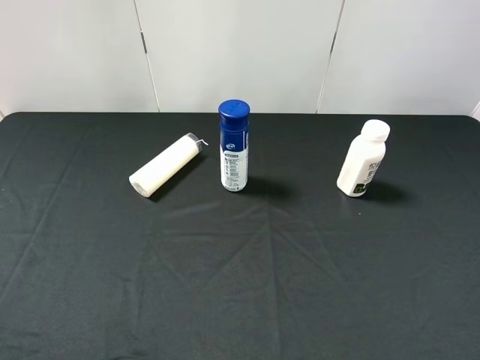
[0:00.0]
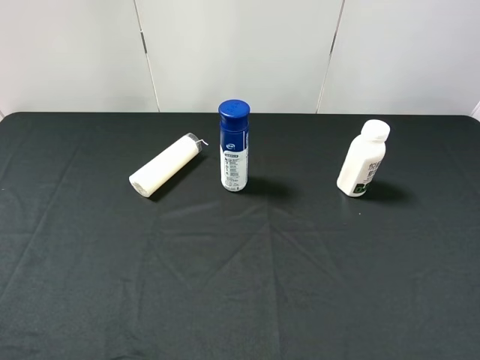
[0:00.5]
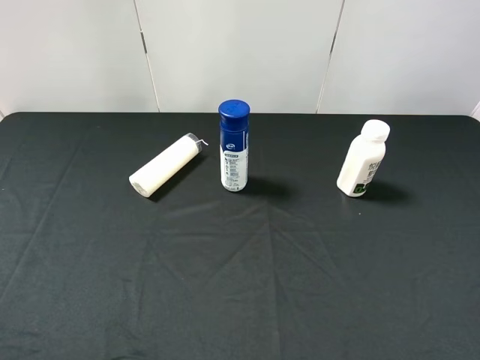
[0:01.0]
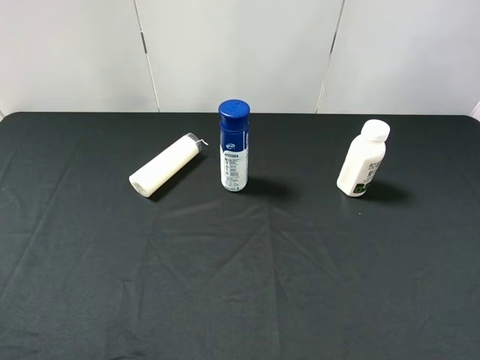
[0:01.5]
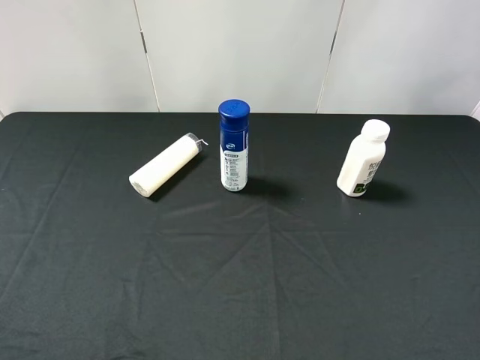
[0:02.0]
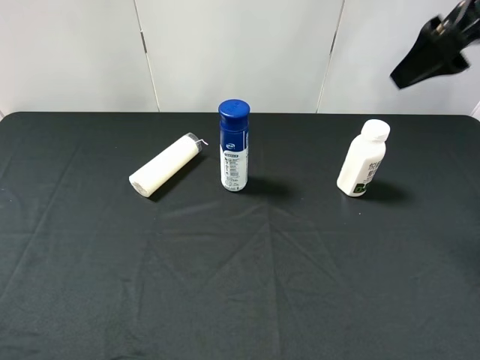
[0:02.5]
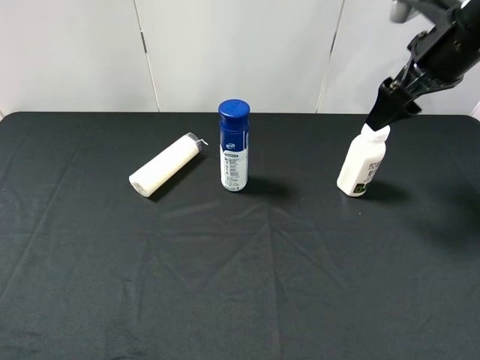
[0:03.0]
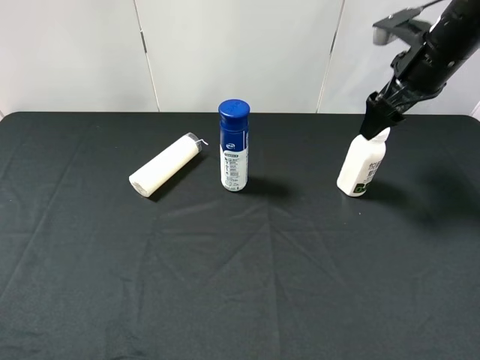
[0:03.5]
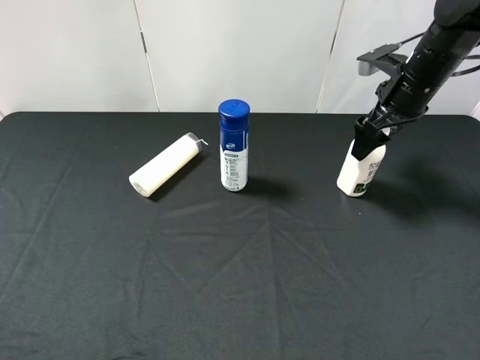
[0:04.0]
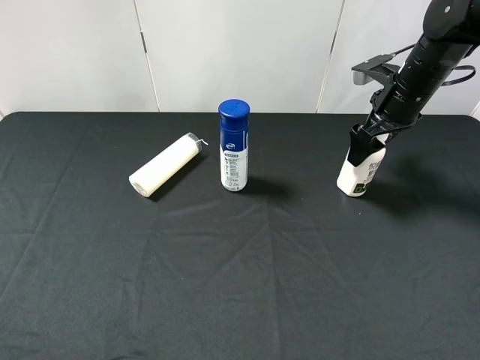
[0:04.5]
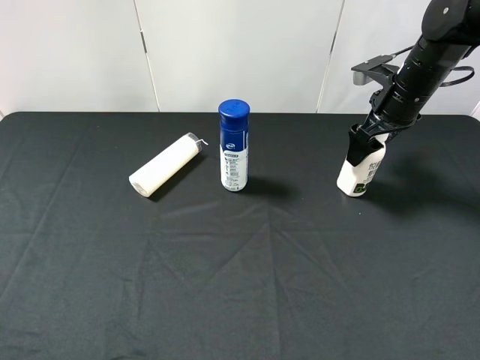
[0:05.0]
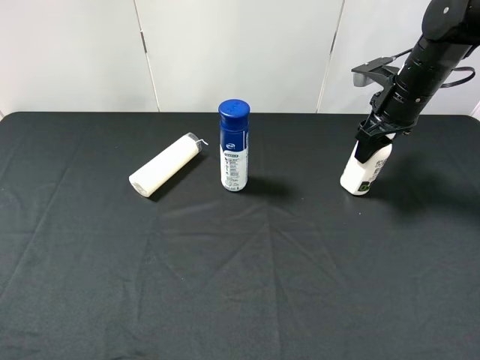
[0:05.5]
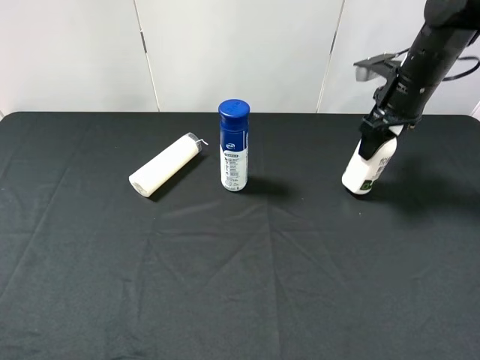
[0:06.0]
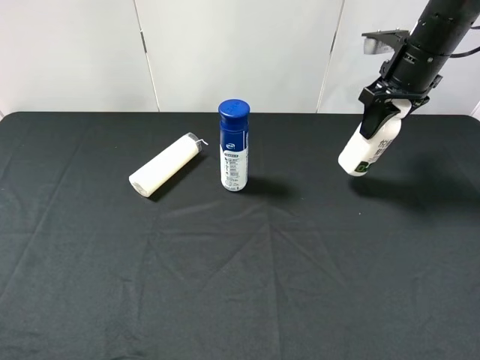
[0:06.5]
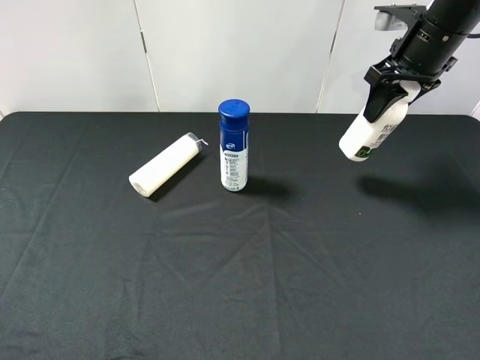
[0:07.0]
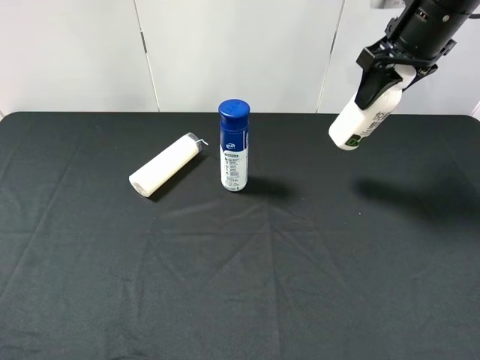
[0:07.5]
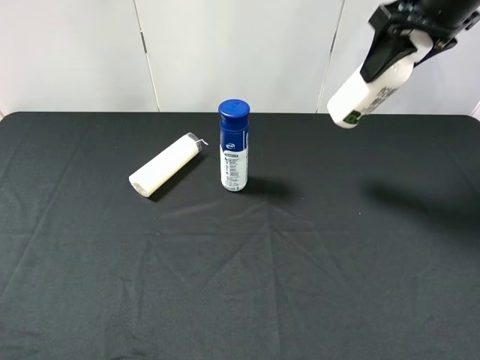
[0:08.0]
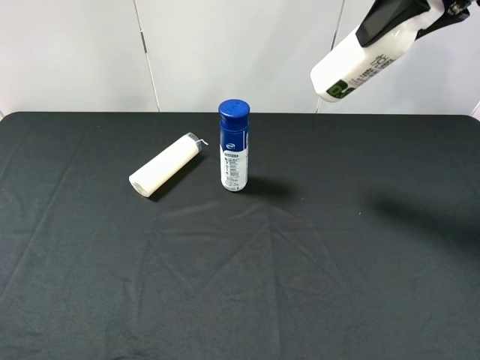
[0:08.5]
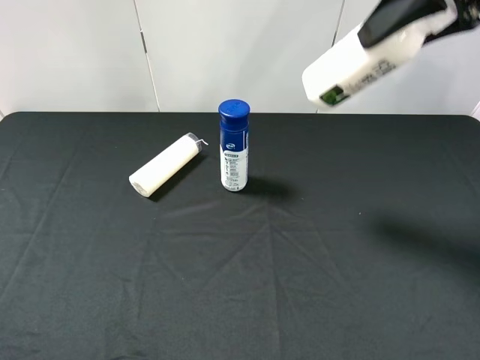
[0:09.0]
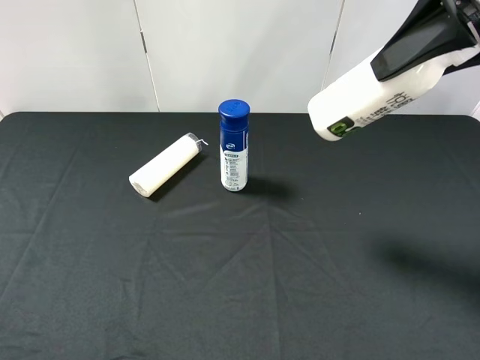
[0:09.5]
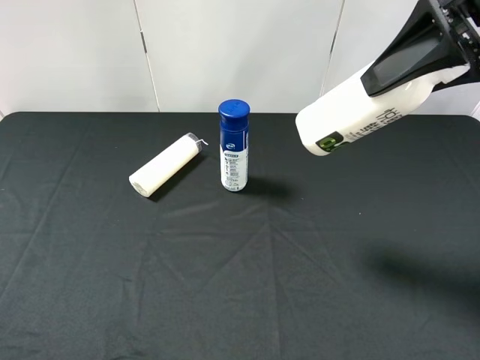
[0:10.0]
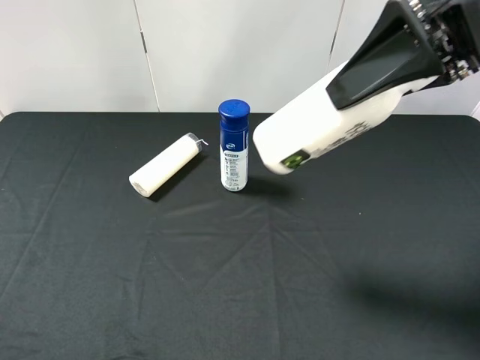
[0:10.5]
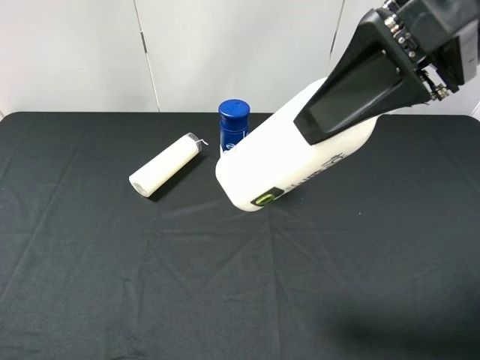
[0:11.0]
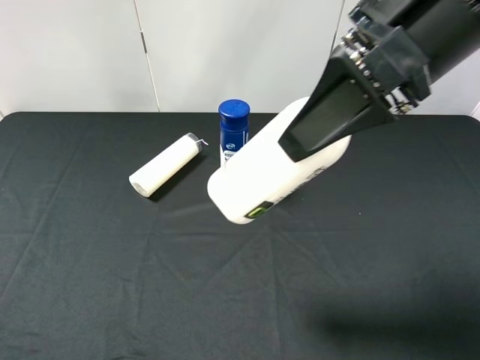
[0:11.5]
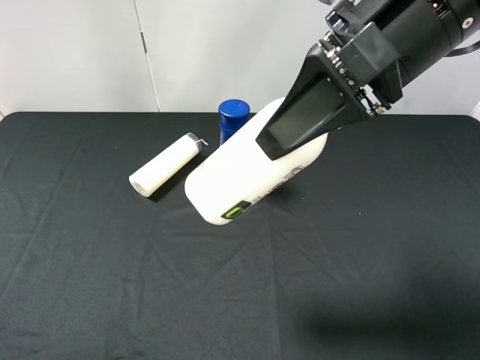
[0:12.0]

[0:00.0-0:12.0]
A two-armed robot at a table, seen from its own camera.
Task of the whole recording: use the right gripper to pick up the item and transfer it from the right gripper to the left gripper.
Step, 0:00.0 to 0:05.5: Use the right gripper to grab the milk on the right side of the table.
0:02.0 to 0:04.0: The right gripper travels downward and forward by approximately 30 cm.
0:04.0 to 0:06.0: The right gripper closes up.
0:06.0 to 0:08.0: The right gripper shifts some 15 cm upward.
0:08.0 to 0:10.0: The right gripper travels backward by about 10 cm.
0:10.0 to 0:12.0: The right gripper is displaced to the left by some 10 cm. The left gripper shifts by some 5 cm.

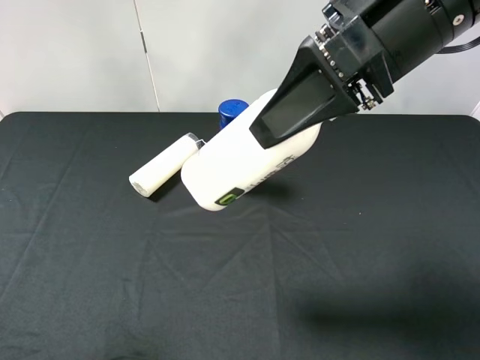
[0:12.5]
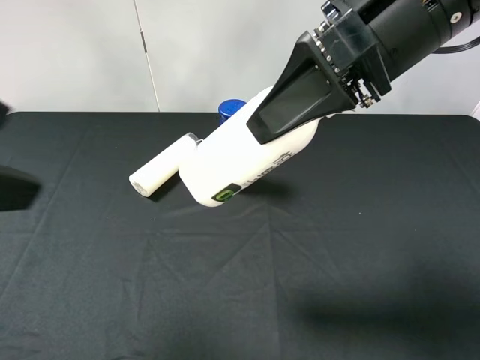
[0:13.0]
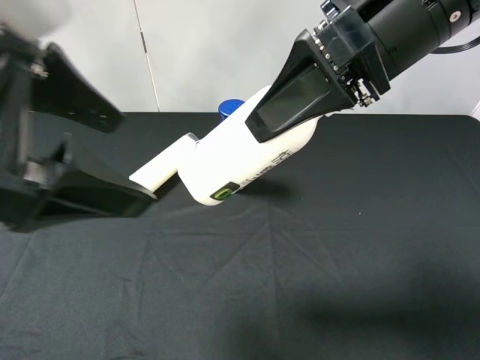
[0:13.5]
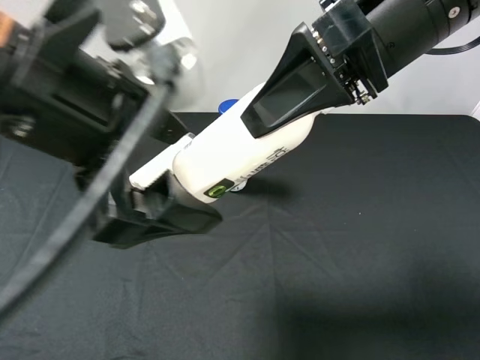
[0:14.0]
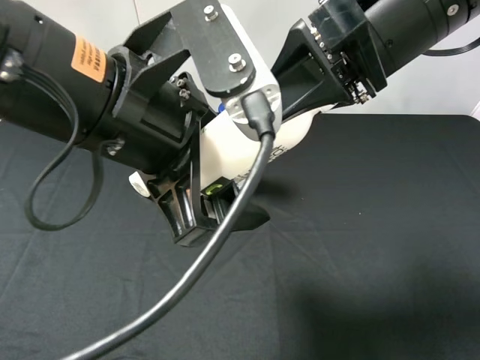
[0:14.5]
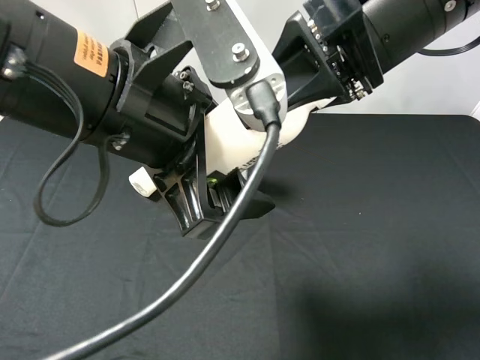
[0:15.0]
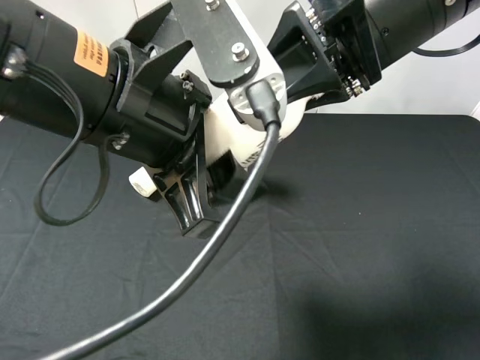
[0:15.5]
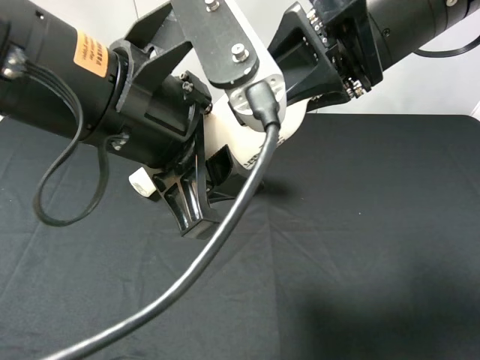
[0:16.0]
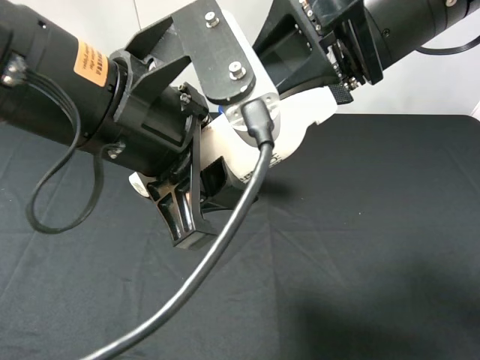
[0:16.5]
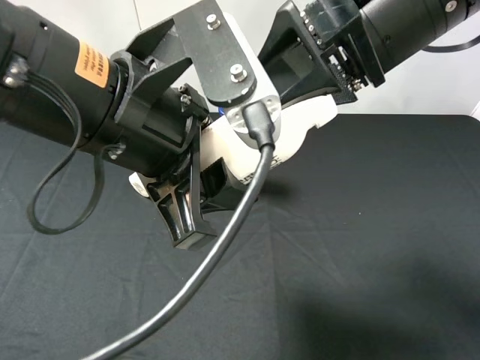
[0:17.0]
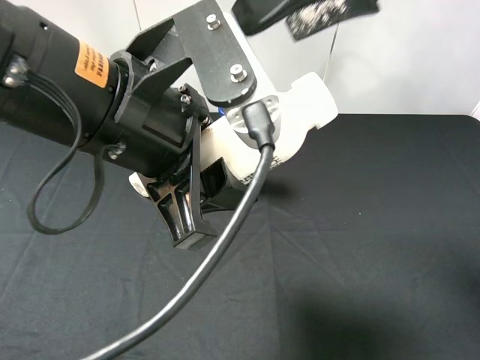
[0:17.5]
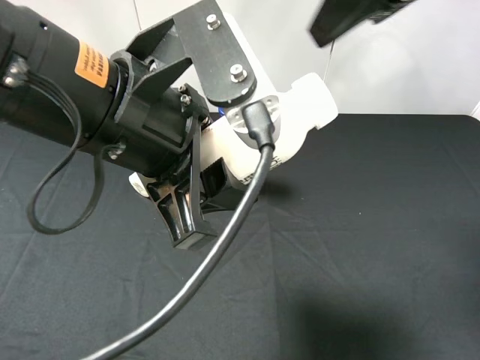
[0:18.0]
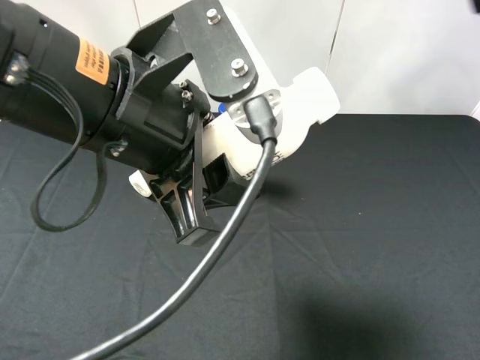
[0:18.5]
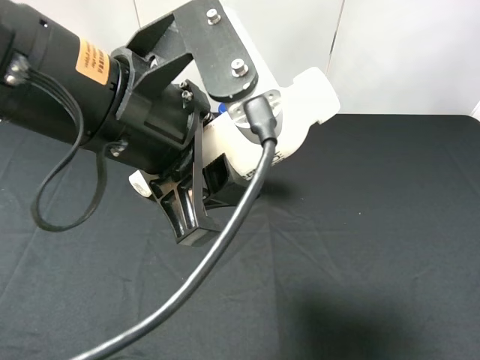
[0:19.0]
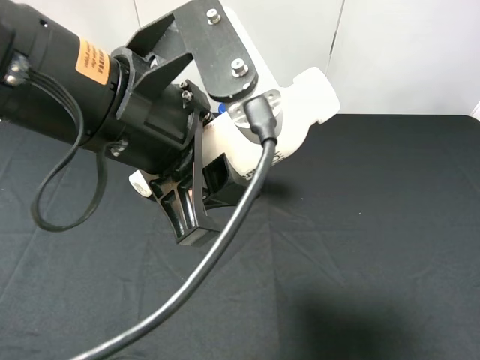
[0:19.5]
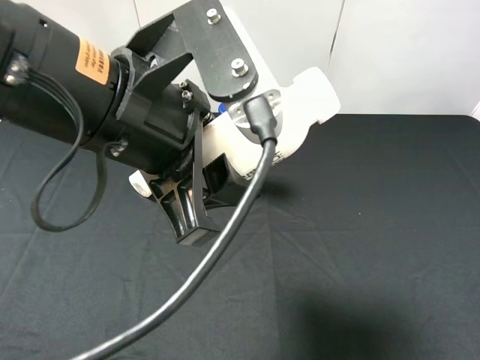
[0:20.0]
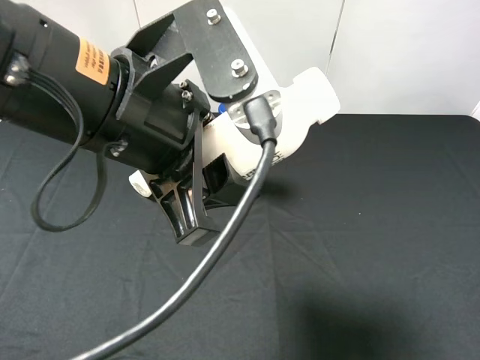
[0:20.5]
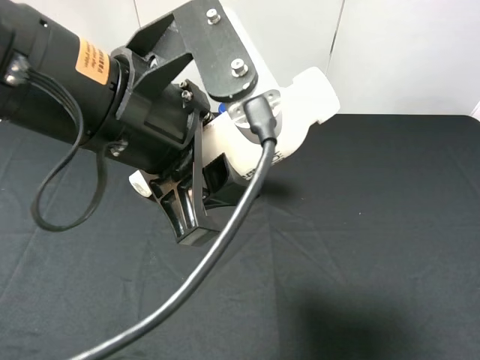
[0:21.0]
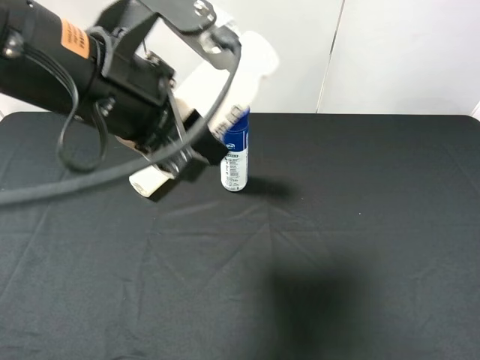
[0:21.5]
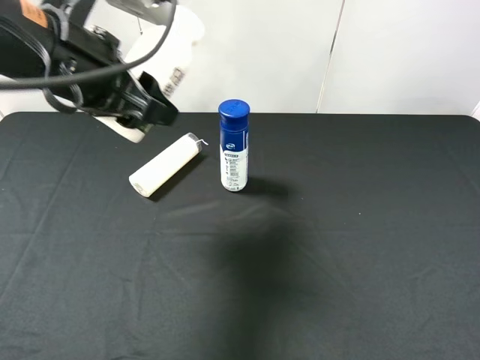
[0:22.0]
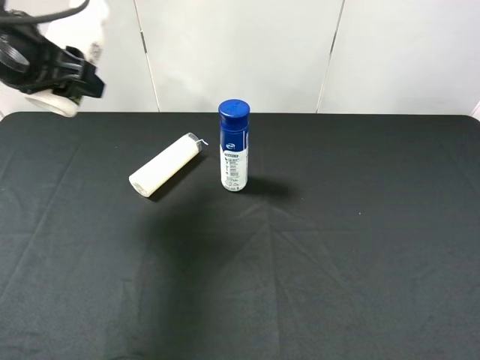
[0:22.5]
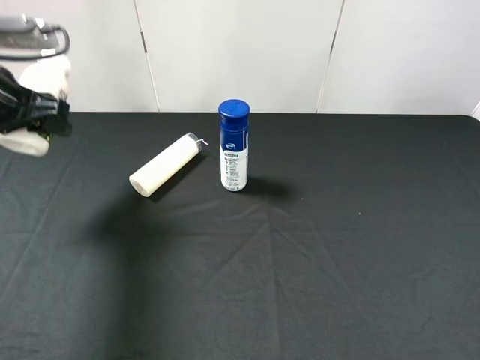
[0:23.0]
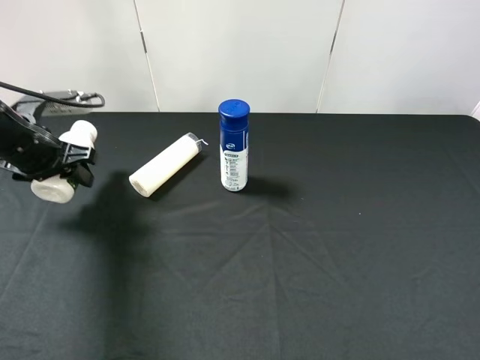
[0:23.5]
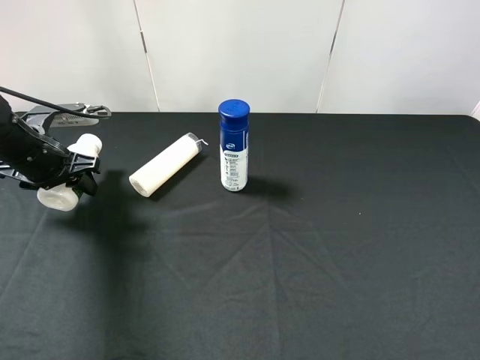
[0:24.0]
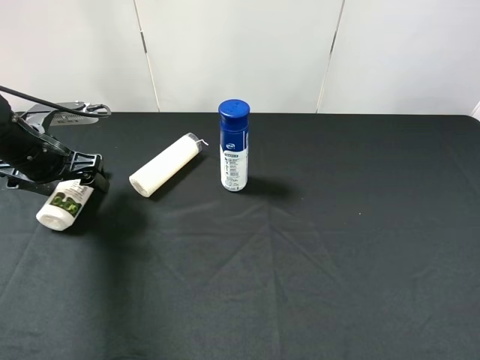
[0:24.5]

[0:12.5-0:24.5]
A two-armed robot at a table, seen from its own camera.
Task of the whole recording: use the right gripper to pick up the item and transfer it from the right gripper to the left gripper.
Step, 0:12.5 to 0:16.5: Pass the milk to the left gripper.
0:12.5 to 0:14.5: The left gripper moves to the right and forward, approximately 20 cm.
0:14.5 to 0:16.5: The left gripper closes its fingers. The right gripper opens its fingers.
0:16.5 to 0:18.5: The right gripper shifts some 15 cm to the right, upward and backward.
0:20.5 to 0:22.5: The left gripper travels to the left and forward by approximately 20 cm.
0:22.5 to 0:24.5: The left gripper goes some 15 cm downward, and opens up.

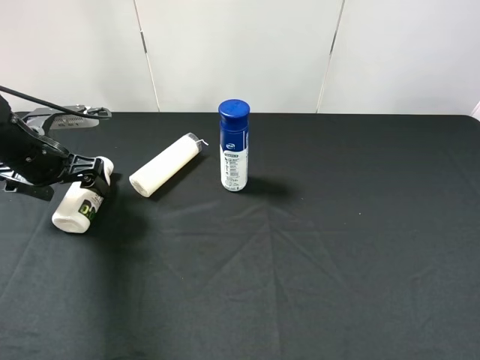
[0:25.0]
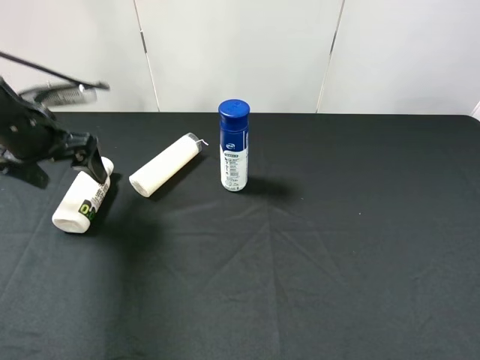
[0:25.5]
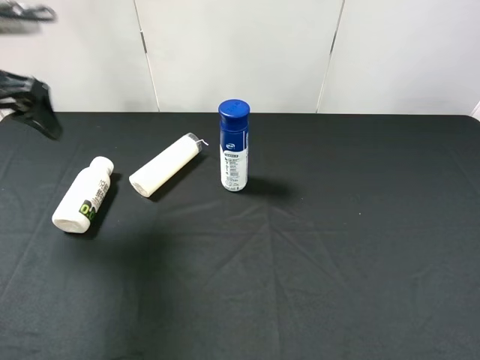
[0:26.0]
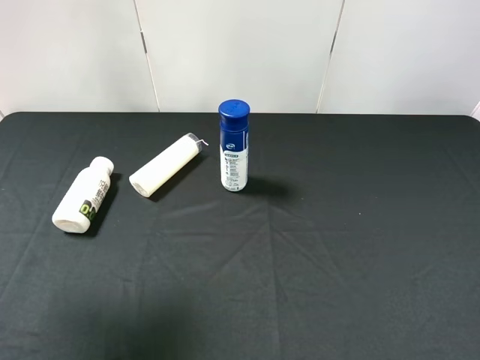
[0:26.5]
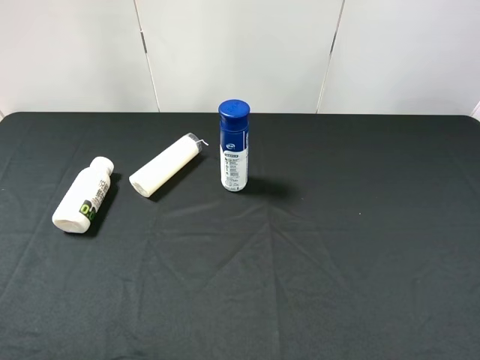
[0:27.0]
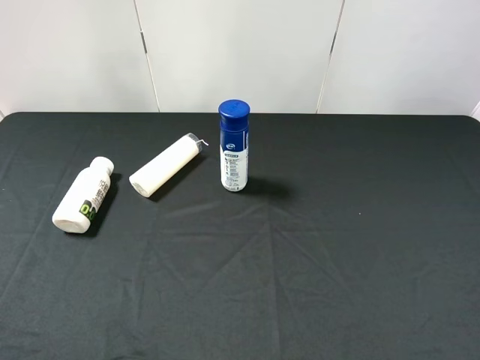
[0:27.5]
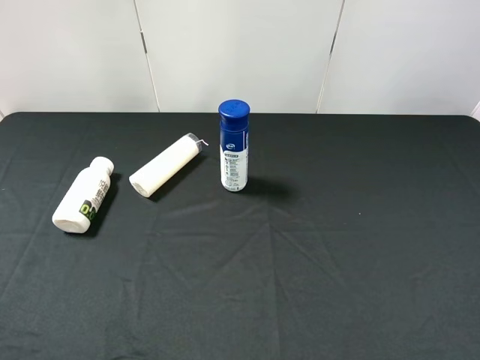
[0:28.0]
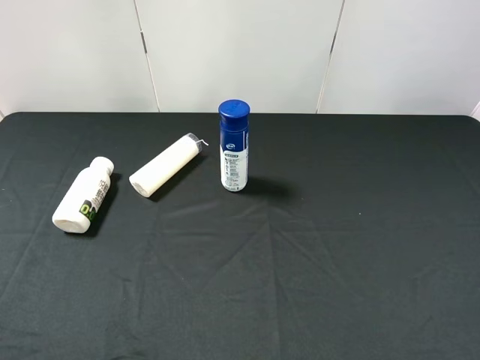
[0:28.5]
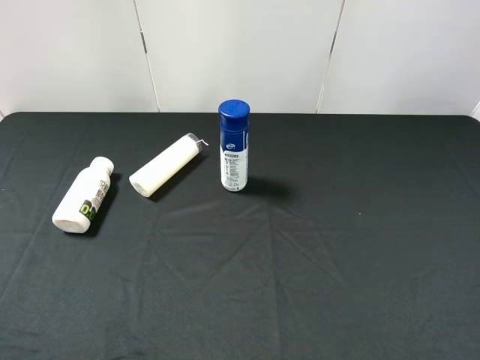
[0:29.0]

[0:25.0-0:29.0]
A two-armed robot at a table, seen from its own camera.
Task of the whole recording: use the right gripper to pick up the item and transfer it from the right gripper to the left gripper.
0:25.0 to 0:27.0: The left gripper moves upward and backward, roughly 35 cm.
